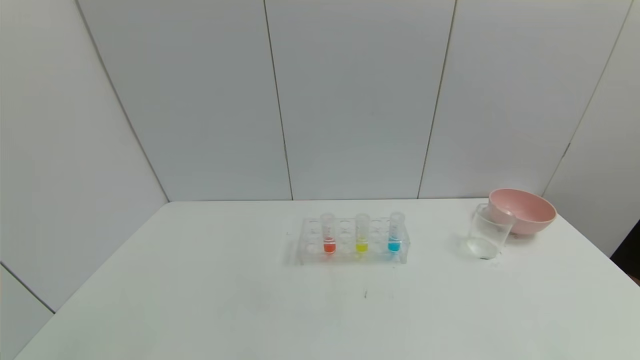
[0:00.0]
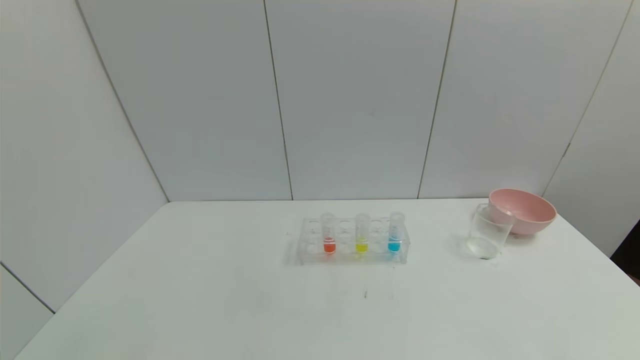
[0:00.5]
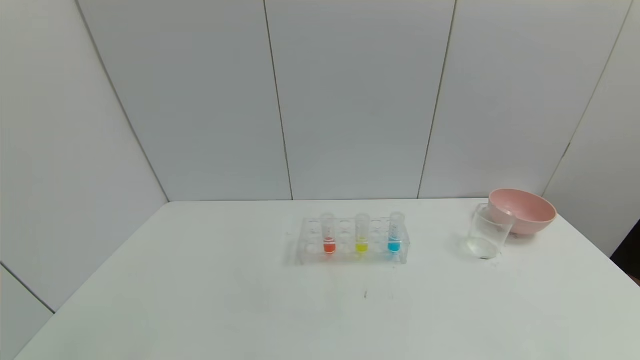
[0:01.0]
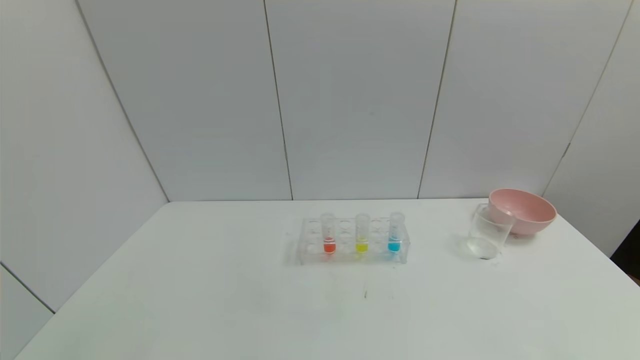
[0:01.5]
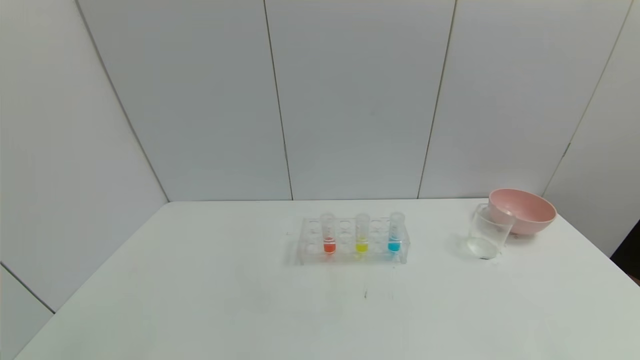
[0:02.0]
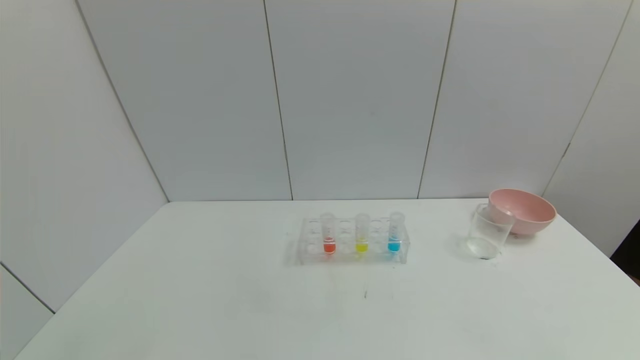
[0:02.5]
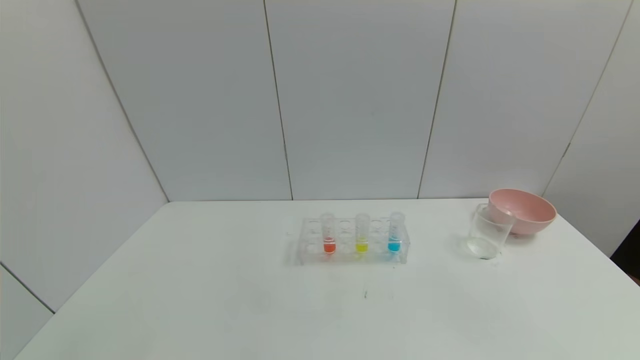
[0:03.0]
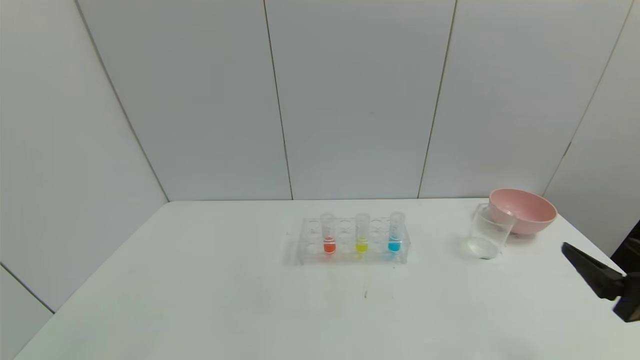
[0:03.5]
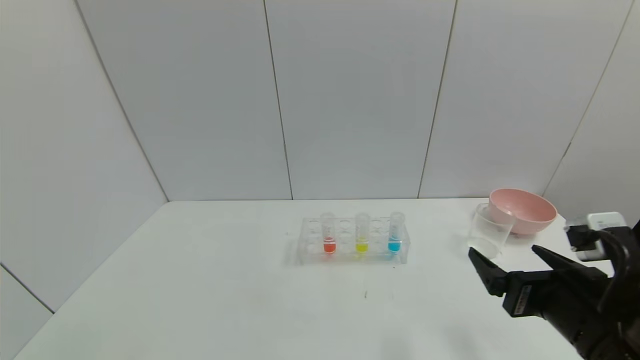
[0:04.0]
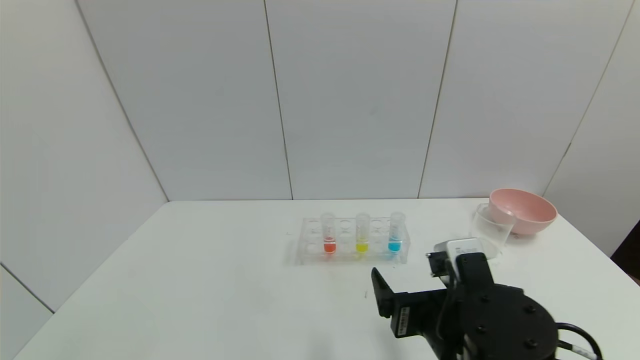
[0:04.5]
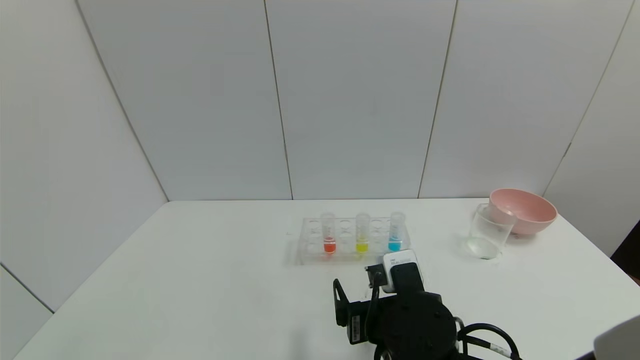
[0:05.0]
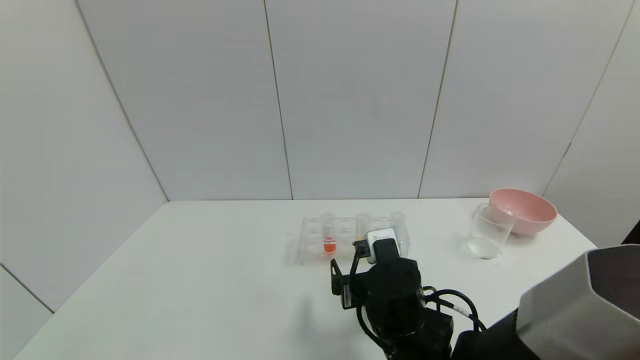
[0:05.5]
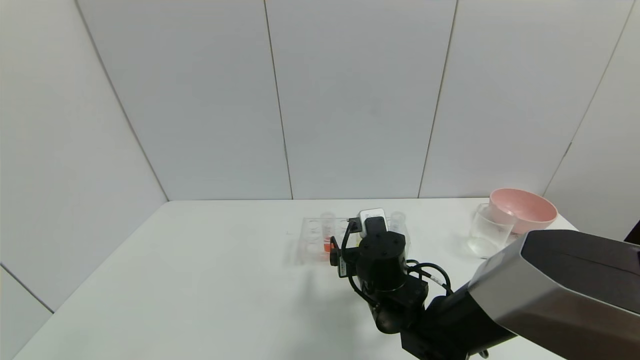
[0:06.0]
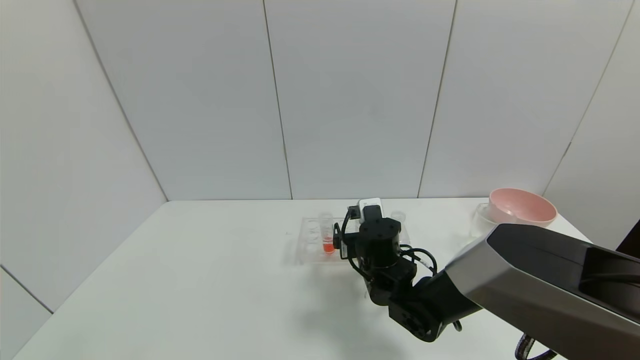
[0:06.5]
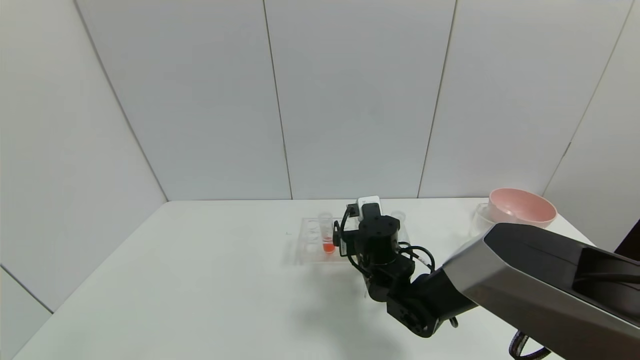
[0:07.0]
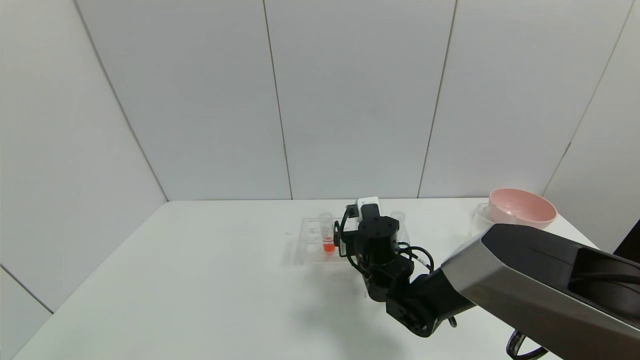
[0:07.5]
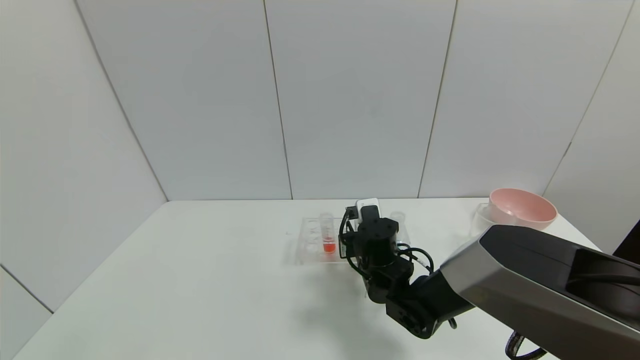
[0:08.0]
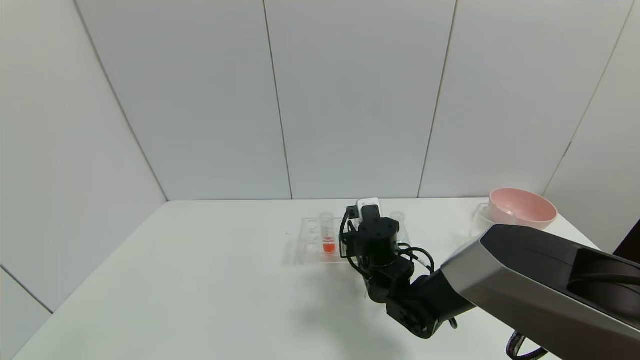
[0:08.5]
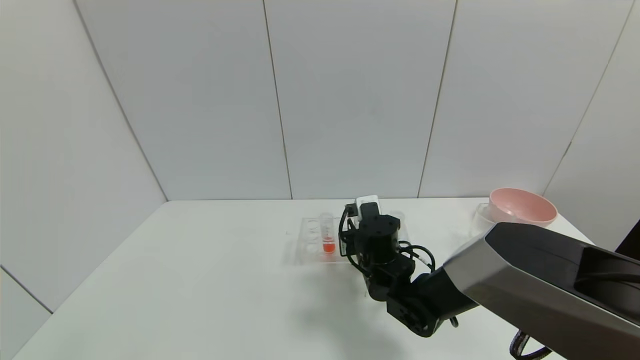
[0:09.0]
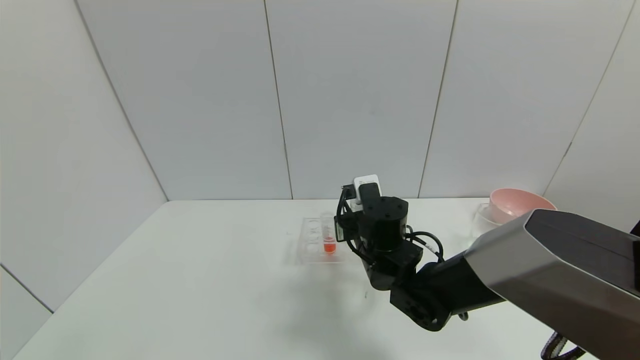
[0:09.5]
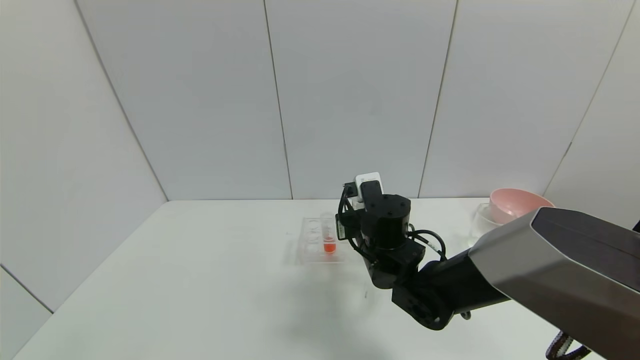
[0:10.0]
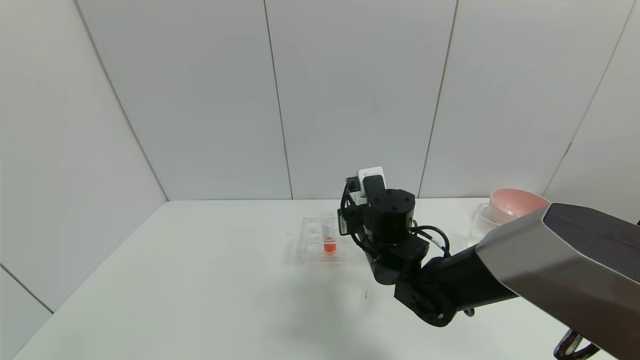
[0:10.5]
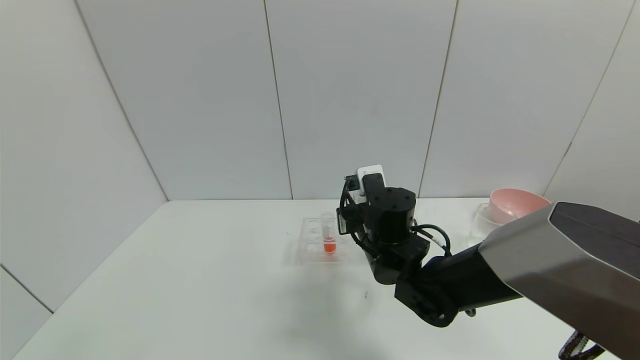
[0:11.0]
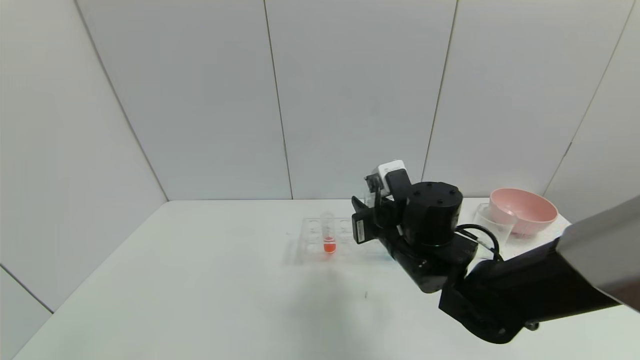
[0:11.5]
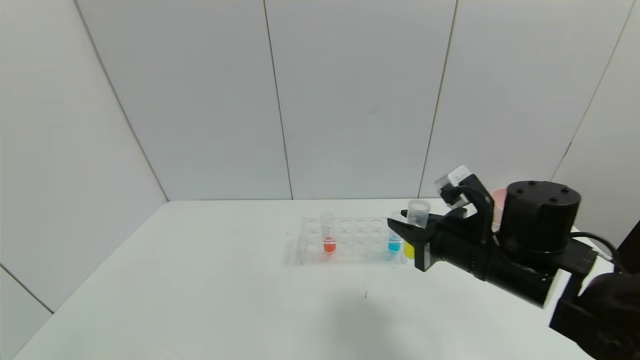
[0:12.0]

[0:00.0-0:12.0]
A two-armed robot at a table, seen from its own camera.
Task of the whole recording: pick up the test tube with yellow pigment and the test tube with blue pigment by grippers and pour them into the beaker.
Step, 0:00.0 to 0:08.0: Grasp the yellow reagent with the right gripper.
0:00.0 to 0:02.0: The two grippers keep their place.
0:02.0 to 0:04.0: The right gripper moves forward and to the left, about 20 cm.
0:04.0 to 0:06.0: The right gripper heads to the left, forward and downward, covering approximately 25 cm.
0:06.0 to 0:08.0: The right gripper heads forward, covering roughly 5 cm, and closes its fingers.
0:08.0 to 0:10.0: The right gripper goes approximately 5 cm upward.
0:10.0 to 0:12.0: The right gripper travels to the right and backward by approximately 15 cm.

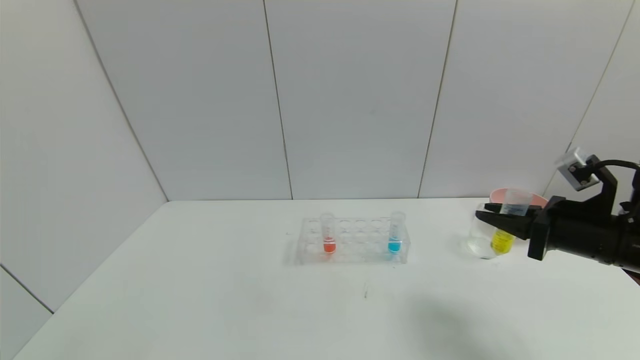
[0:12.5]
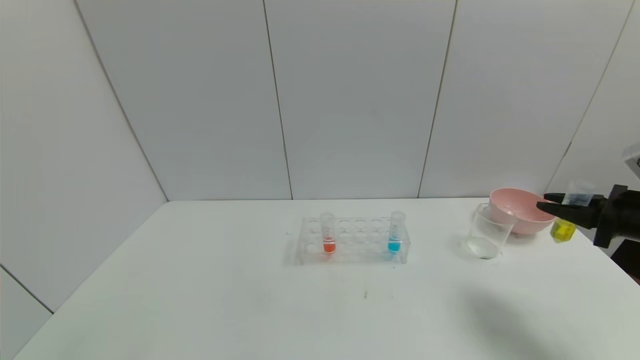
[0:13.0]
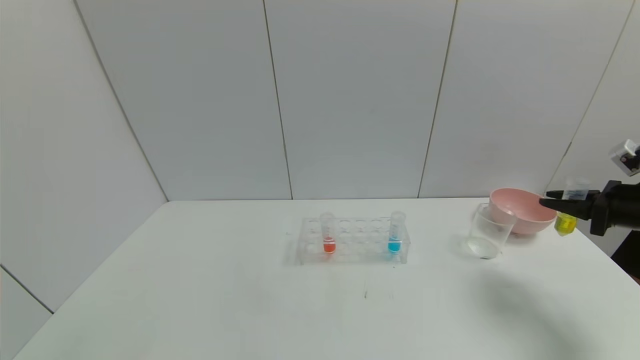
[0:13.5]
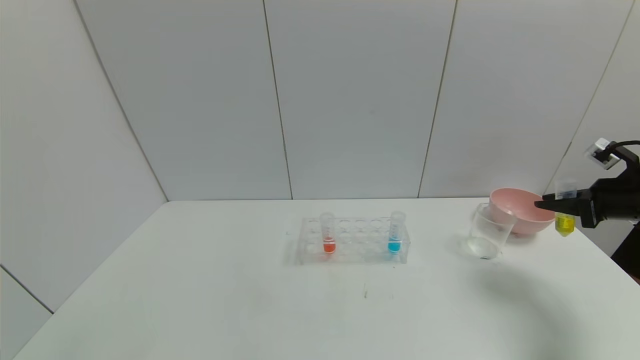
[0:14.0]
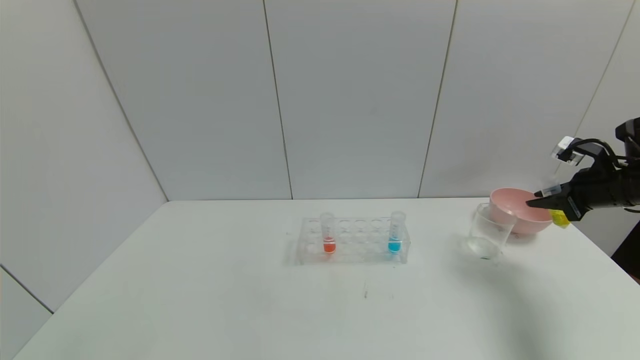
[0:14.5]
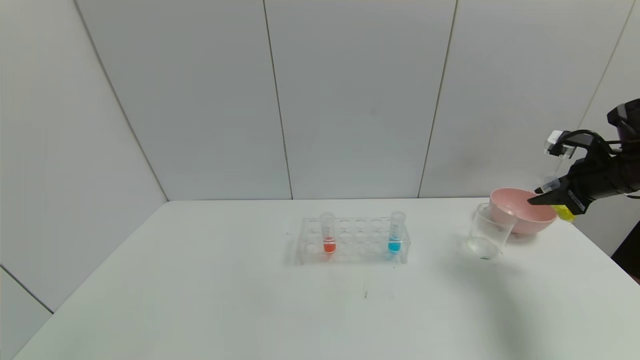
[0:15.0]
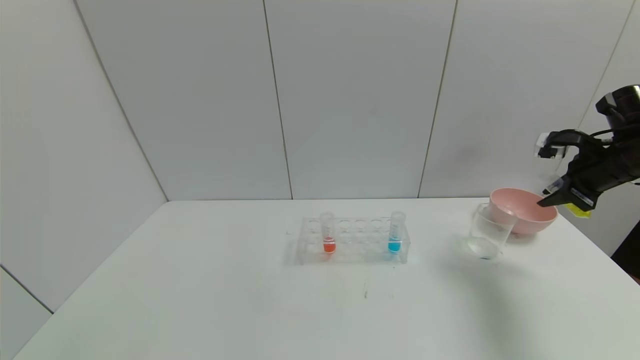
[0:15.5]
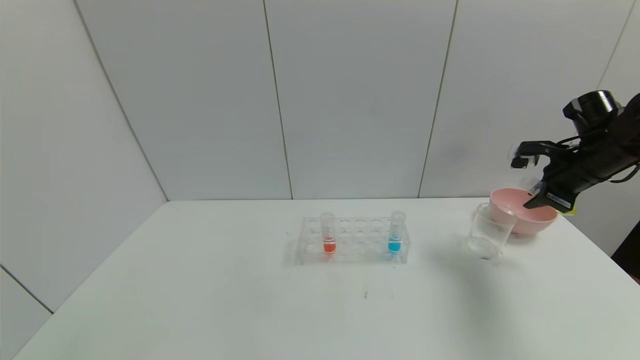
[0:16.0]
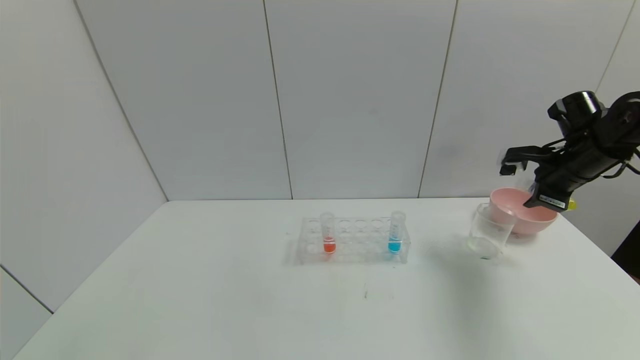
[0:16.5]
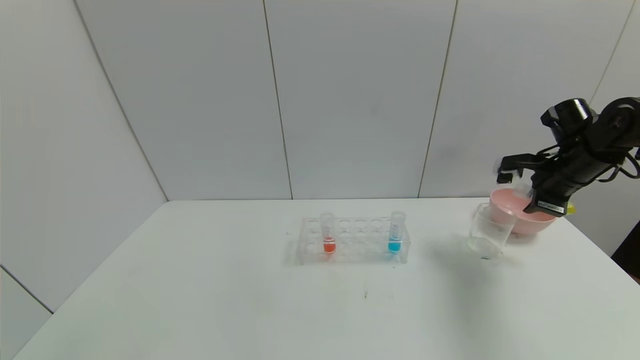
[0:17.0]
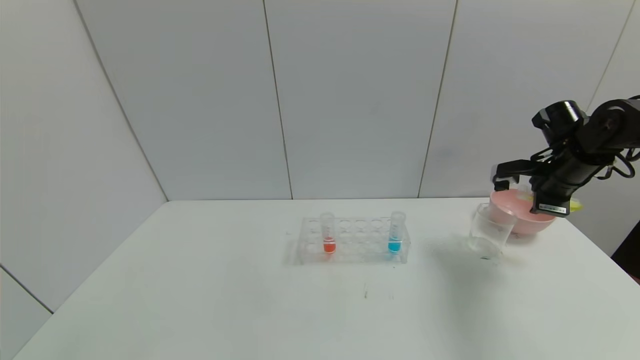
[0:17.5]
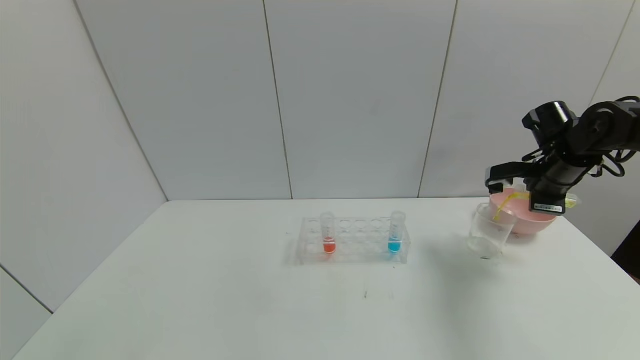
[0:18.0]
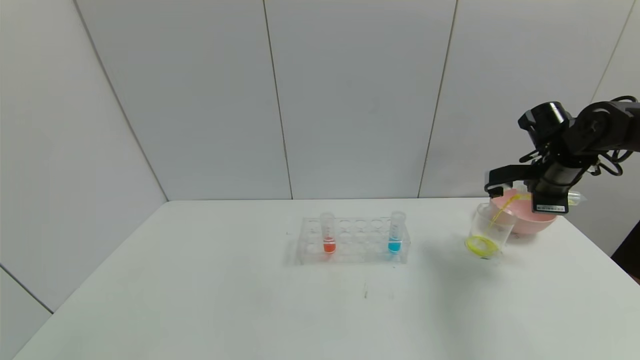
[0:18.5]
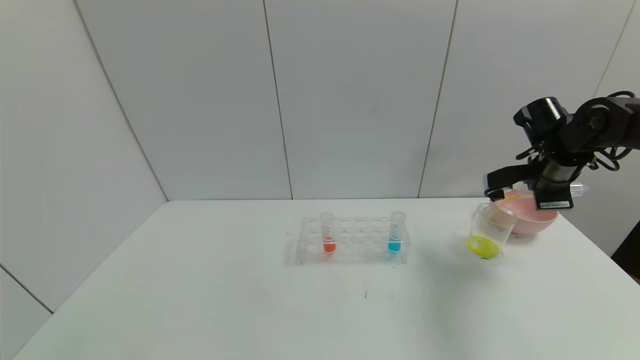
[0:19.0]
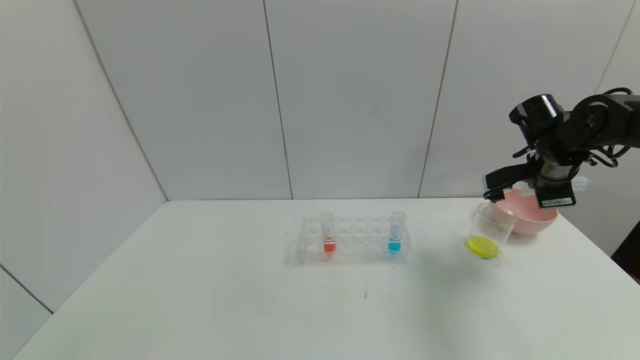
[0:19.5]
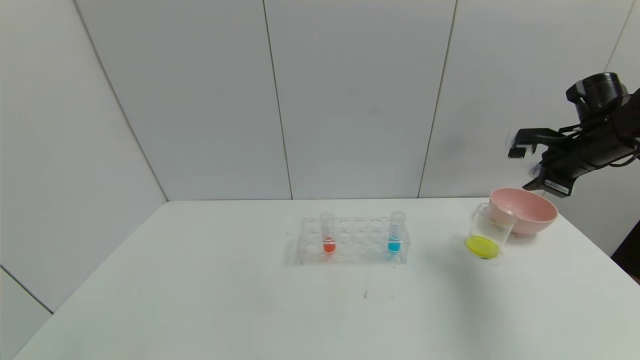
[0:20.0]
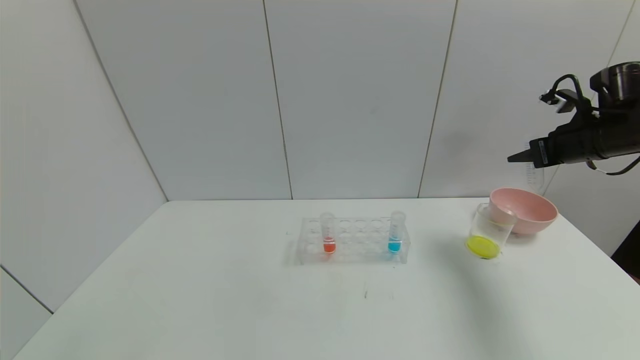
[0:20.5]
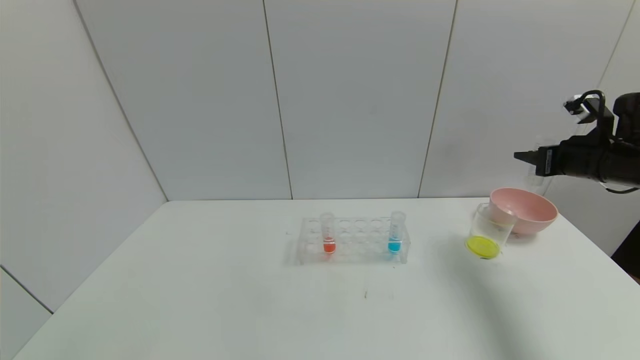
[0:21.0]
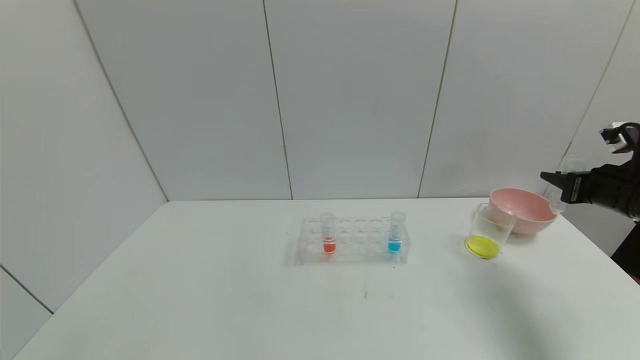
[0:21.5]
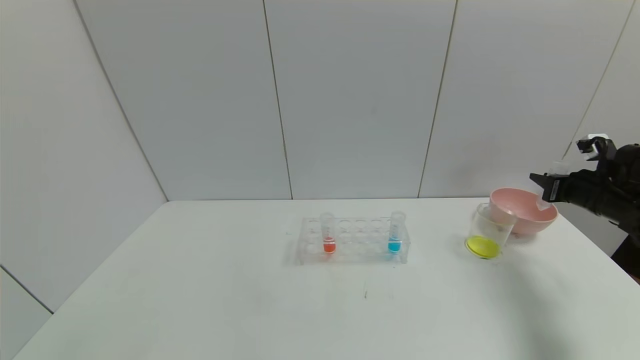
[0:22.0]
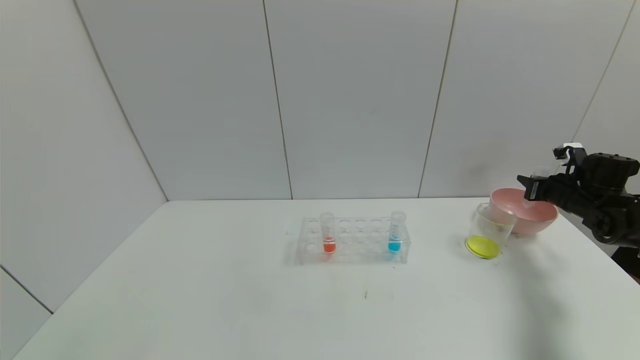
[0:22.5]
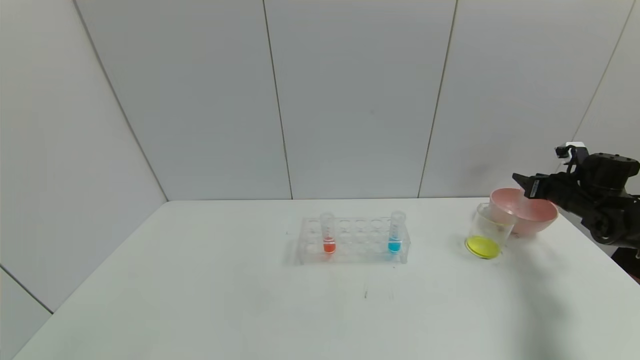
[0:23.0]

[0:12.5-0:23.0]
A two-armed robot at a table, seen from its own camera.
Task of the whole recording: pick up the test tube with yellow pigment and the test tube with blue pigment by grippers and pour them into the beaker.
Step, 0:12.5 to 0:19.5: Pour the yellow reagent into the graduated cylinder with the right gripper.
0:12.5 to 0:14.5: The right gripper goes roughly 15 cm to the right and forward.
0:14.5 to 0:16.5: The right gripper goes approximately 5 cm to the left.
0:19.0 to 0:21.0: The right gripper heads to the right, covering roughly 5 cm.
0:21.0 to 0:23.0: The right gripper goes some 15 cm downward, forward and to the right, and opens its fingers.
